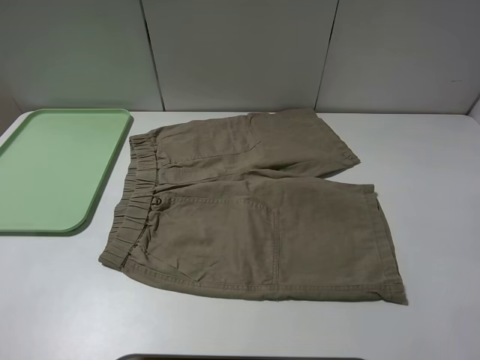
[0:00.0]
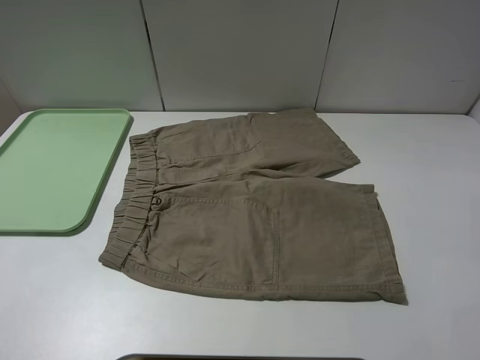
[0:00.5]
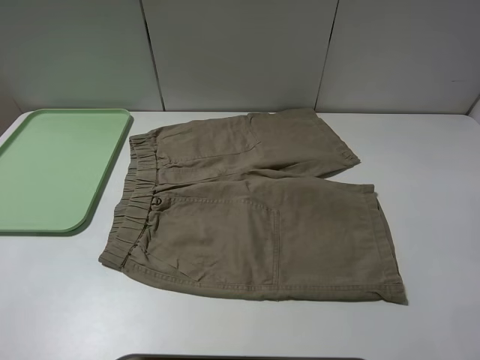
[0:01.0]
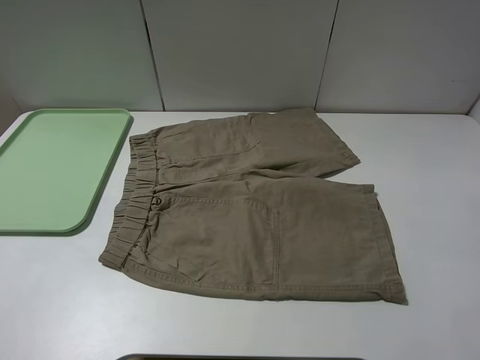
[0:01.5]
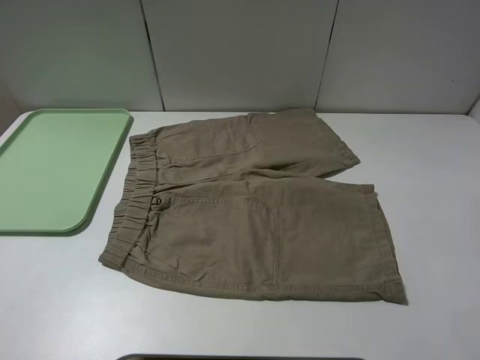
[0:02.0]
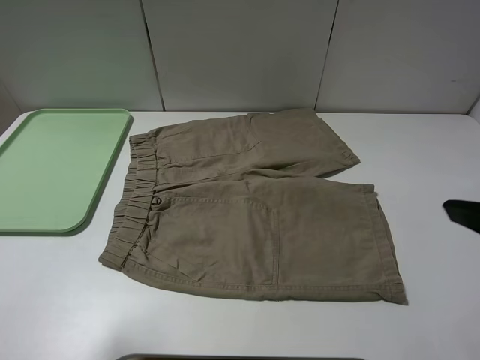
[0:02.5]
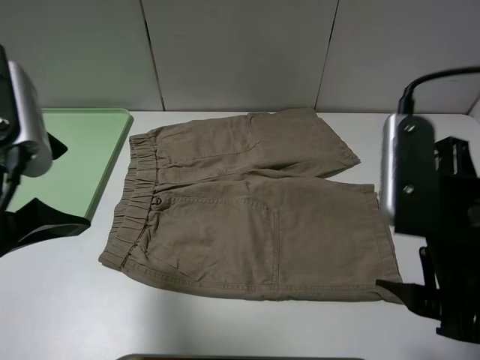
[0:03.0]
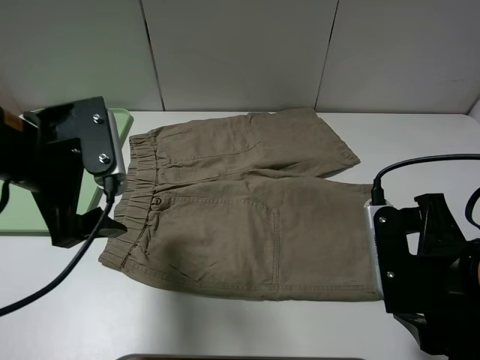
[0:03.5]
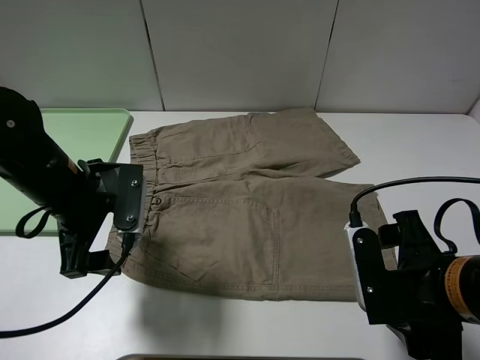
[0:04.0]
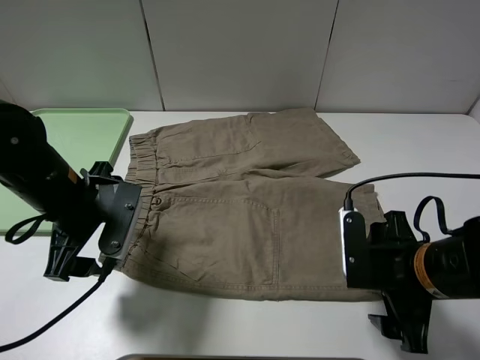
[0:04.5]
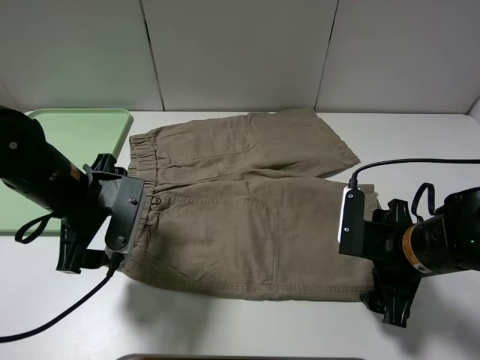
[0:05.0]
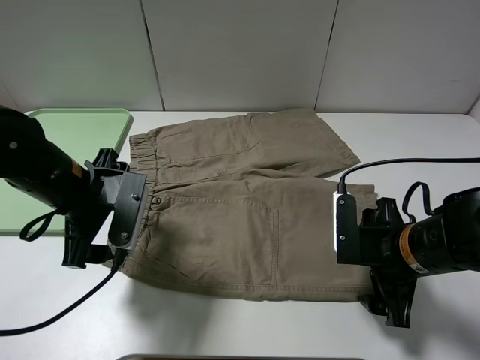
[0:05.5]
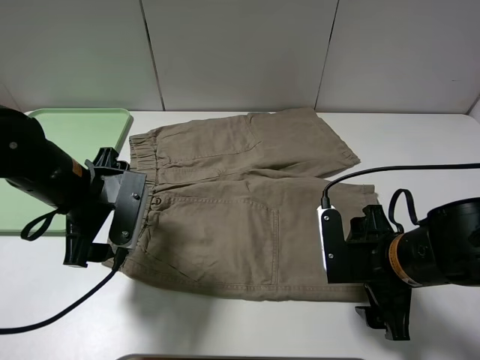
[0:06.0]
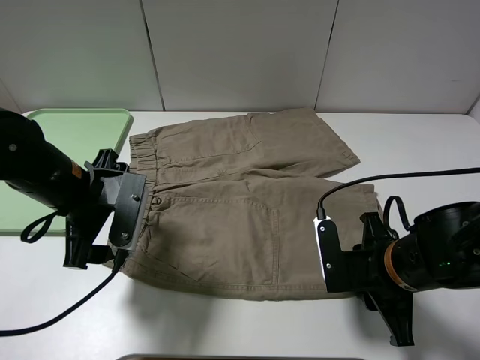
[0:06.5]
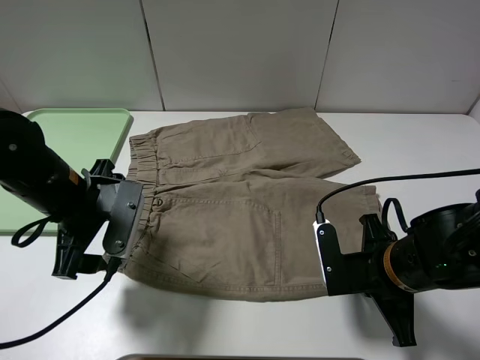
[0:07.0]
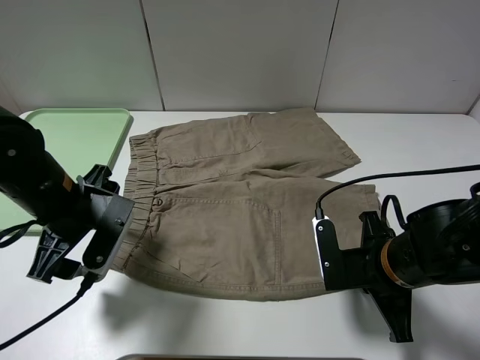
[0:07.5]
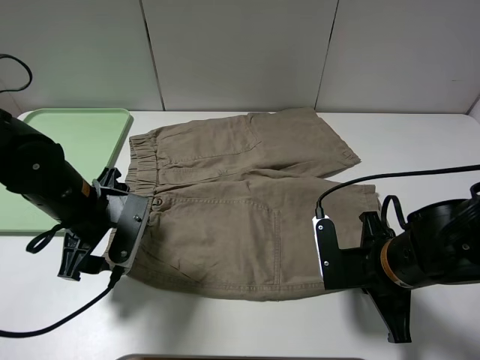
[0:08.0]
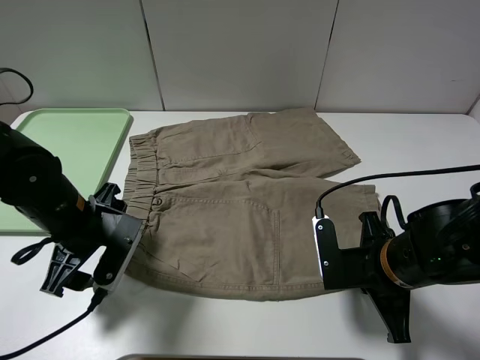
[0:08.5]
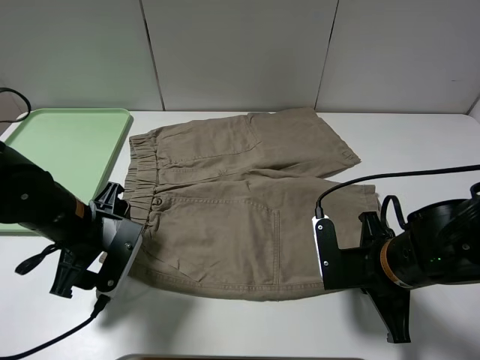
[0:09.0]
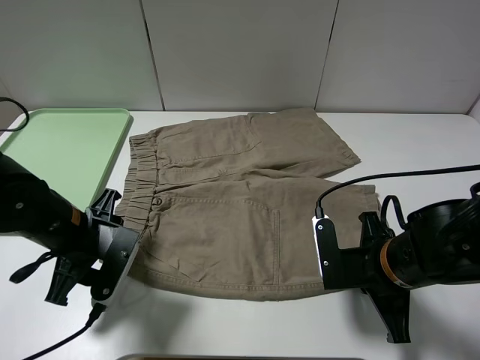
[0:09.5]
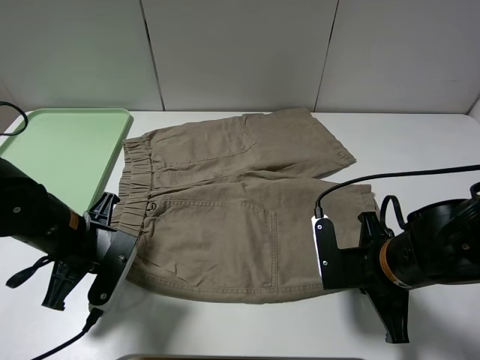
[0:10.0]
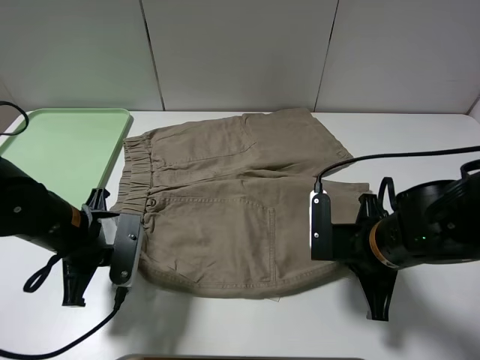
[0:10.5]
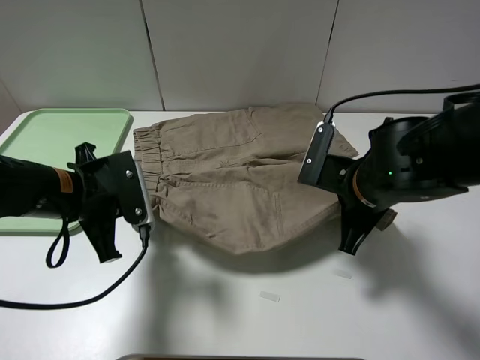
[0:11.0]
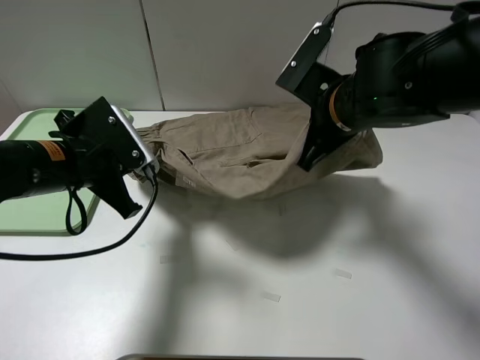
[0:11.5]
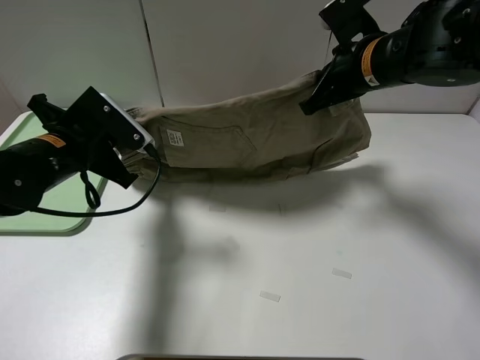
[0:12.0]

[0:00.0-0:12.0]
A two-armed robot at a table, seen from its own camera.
Task of the whole recording: fold the khaki jeans in half with two grippers, then fold them in half again, and use the left claw to place the folded fold khaki jeans on the tray.
Step, 0.0 to 7.0 s: Grasp the khaki trousers with the right gripper.
Step, 7.5 to 10.0 s: Grasp the khaki trousers with the left gripper.
2.0 to 4.0 s: The right gripper is displaced downward, forward and to the left by some 20 cm; the left gripper shifts approximately 30 cm forward, downward and to the right.
4.0 to 6.0 s: The right gripper moves about 5 cm.
6.0 to 8.0 s: The right gripper closes.
8.0 to 10.0 s: The left gripper closes its fingers.
10.0 to 12.0 s: The right gripper shifts roughly 25 cm forward and upward. Meanwhile the left gripper heads upward and forward, covering about 10 cm.

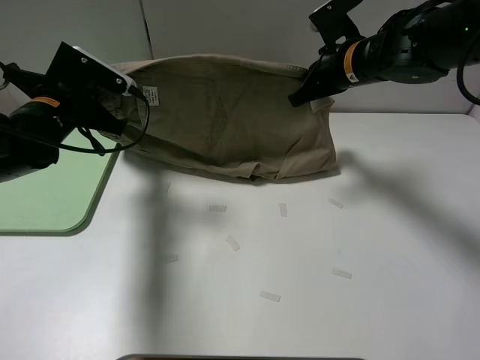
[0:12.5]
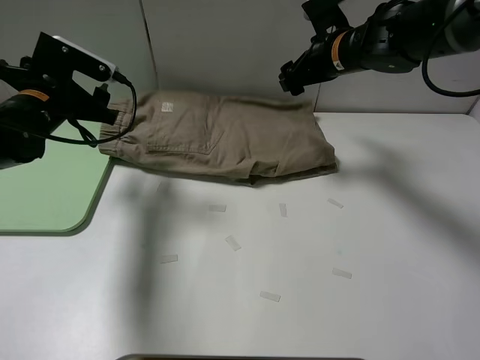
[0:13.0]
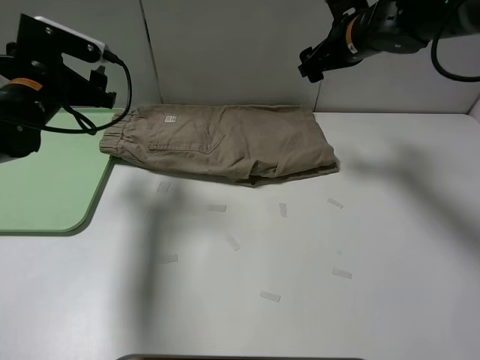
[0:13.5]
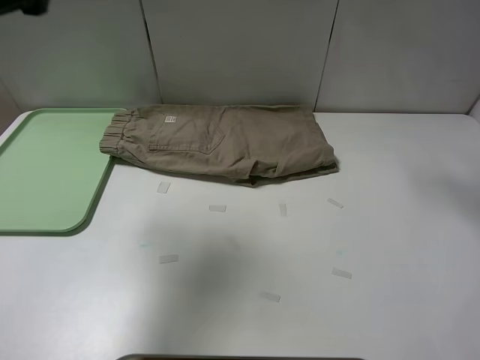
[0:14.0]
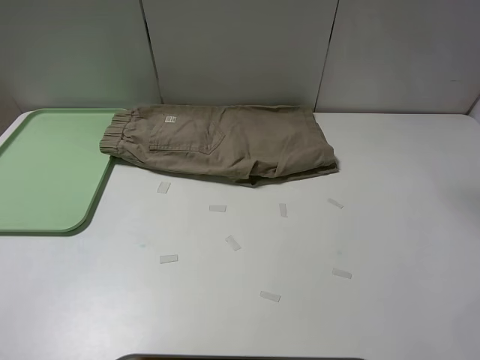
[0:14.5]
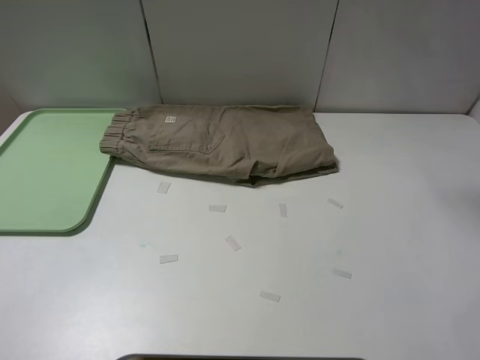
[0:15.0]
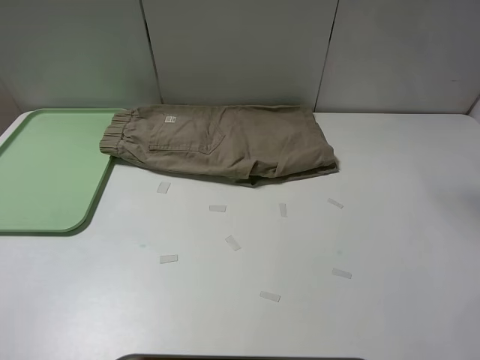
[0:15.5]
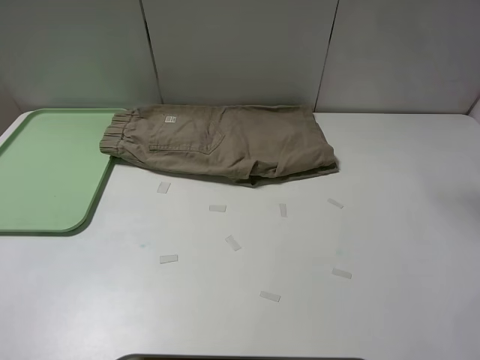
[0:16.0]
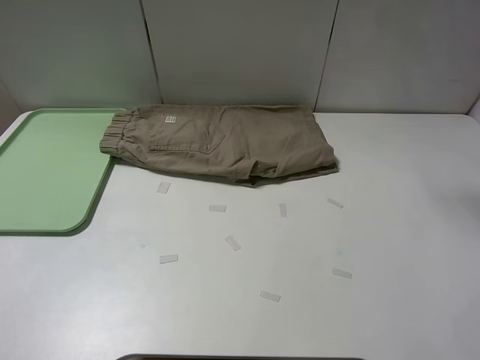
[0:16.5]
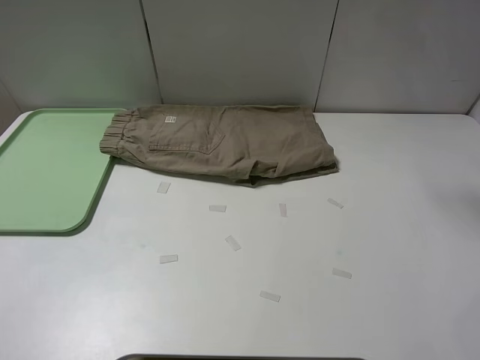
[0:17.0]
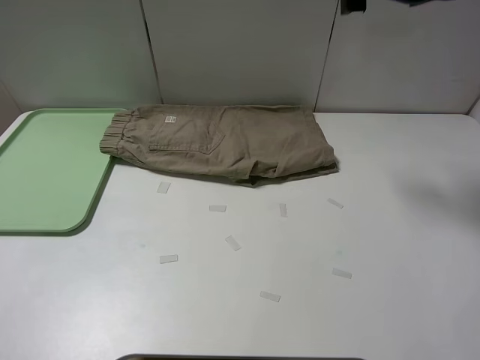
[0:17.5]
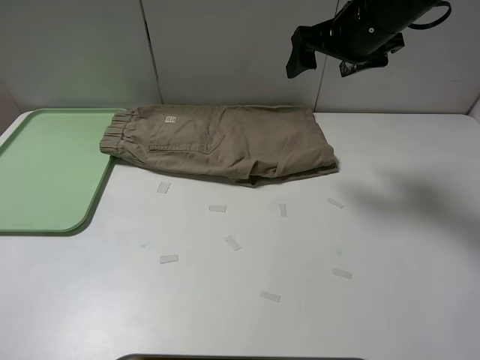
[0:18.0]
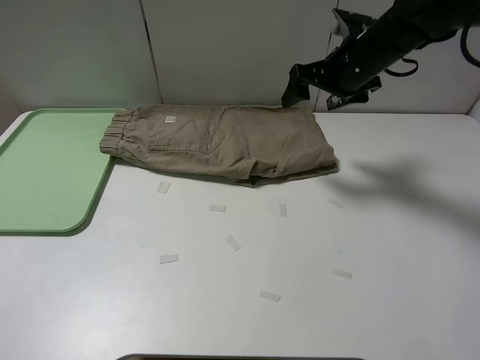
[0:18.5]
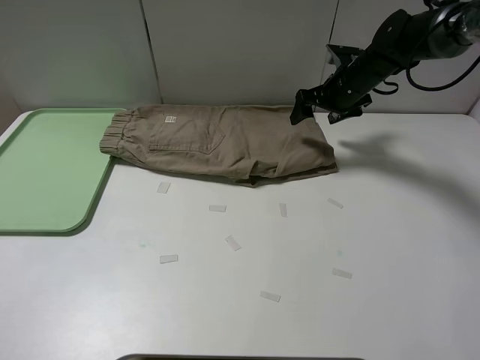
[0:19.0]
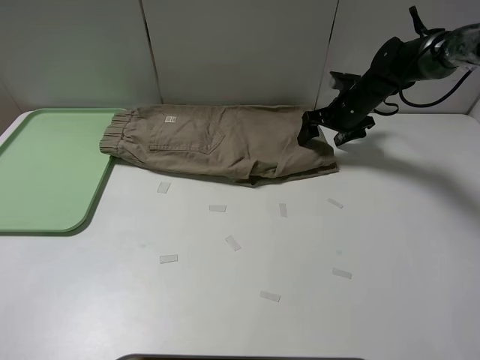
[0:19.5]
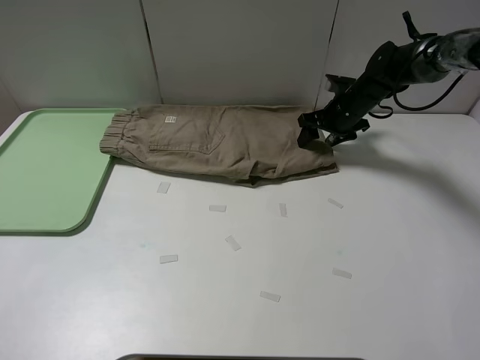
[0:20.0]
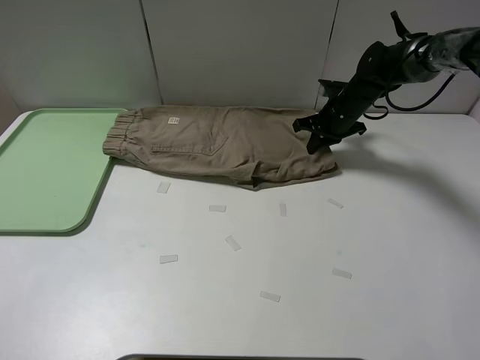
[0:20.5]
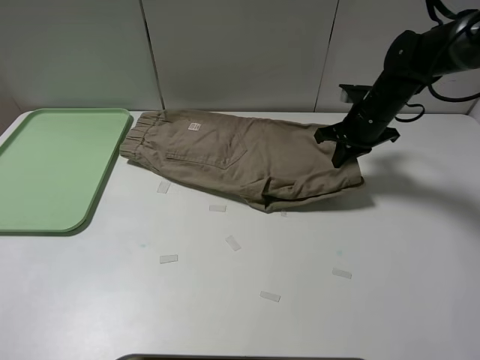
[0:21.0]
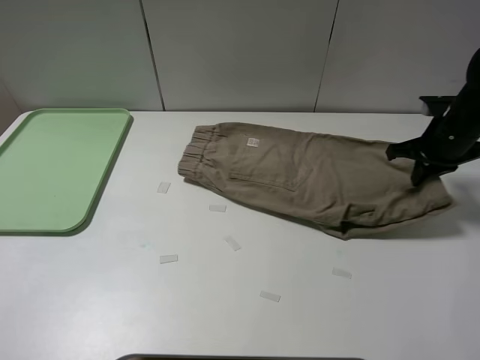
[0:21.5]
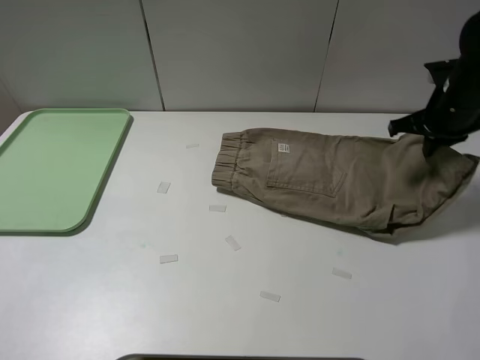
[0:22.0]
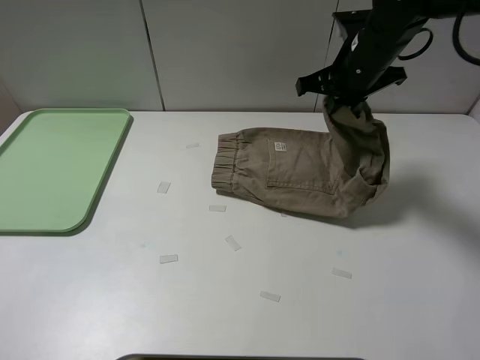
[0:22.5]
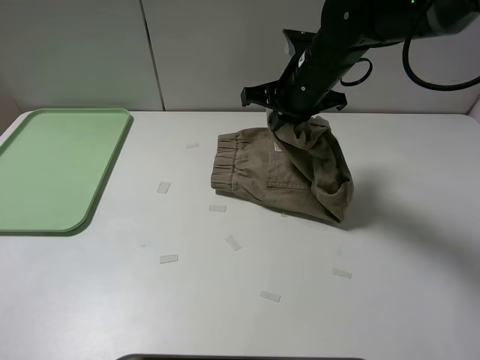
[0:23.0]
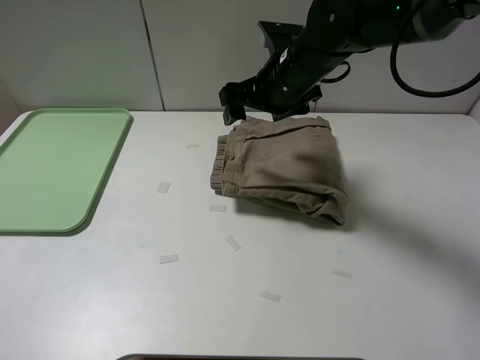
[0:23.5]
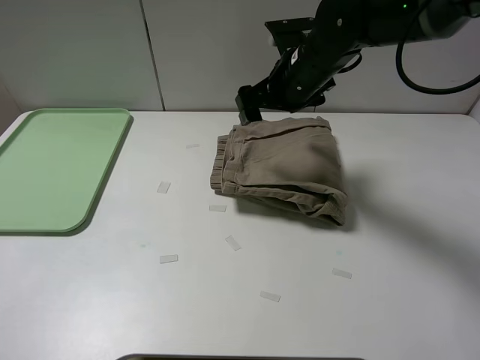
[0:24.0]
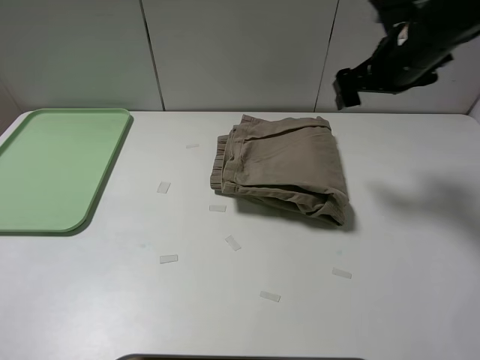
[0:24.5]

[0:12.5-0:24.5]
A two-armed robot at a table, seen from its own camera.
Task of the whole recording: fold the khaki jeans in half with two grippers, then fold them in half again, and use the left claw to place the folded fold khaki jeans on the tray.
Step, 13.5 to 20.0 s: Grasp the khaki trousers with the right gripper.
Step, 20.5 to 23.5 s: Fold the khaki trousers from right to left with the right gripper.
12.5 to 14.5 s: The right gripper heads upward, covering some 20 cm, and opens its fingers, while the left gripper is displaced backward and upward by about 35 cm, and opens its fingers.
16.5 to 18.5 s: The right gripper moves downward, approximately 20 cm.
18.5 to 20.5 s: The right gripper goes about 15 cm downward and forward, and closes up.
20.5 to 22.5 s: The right gripper is displaced upward and backward by roughly 15 cm, and travels to the right and back again, some 15 cm each way.
22.5 to 24.5 s: The right gripper shifts about 5 cm to the right, and opens its fingers.

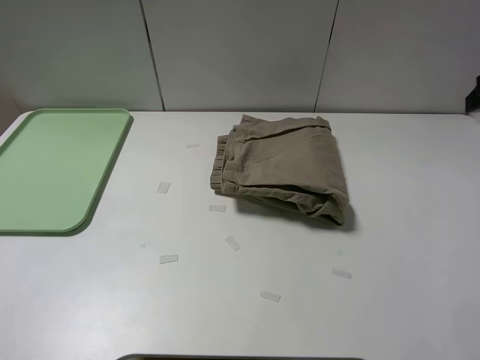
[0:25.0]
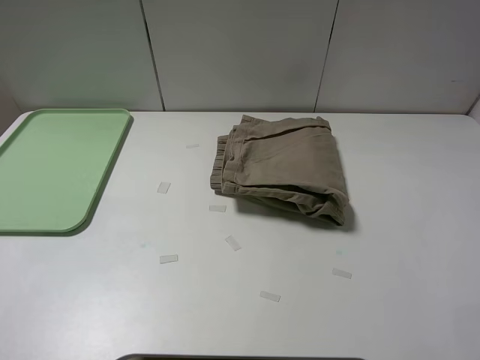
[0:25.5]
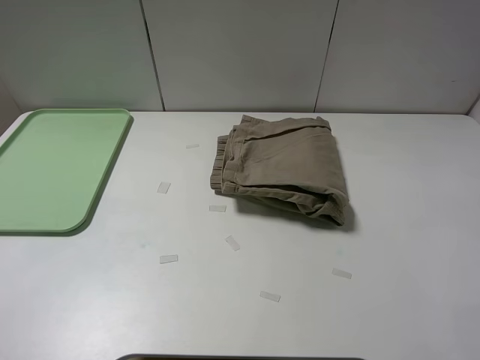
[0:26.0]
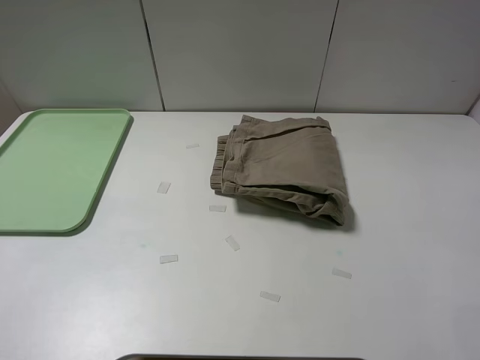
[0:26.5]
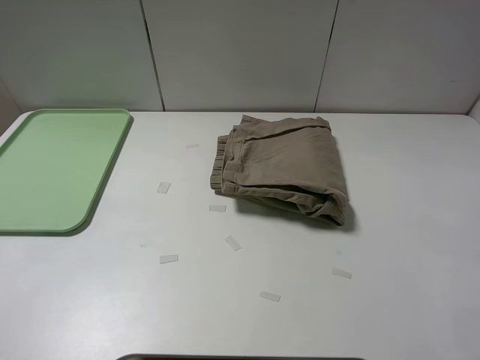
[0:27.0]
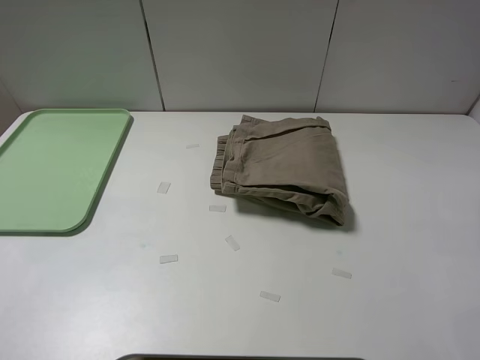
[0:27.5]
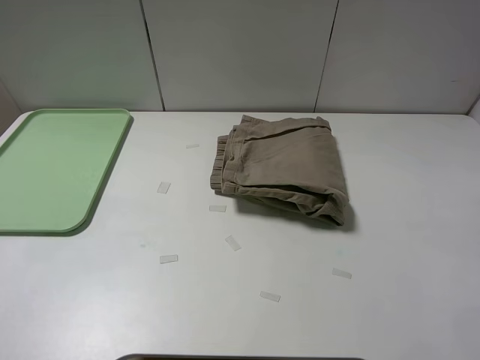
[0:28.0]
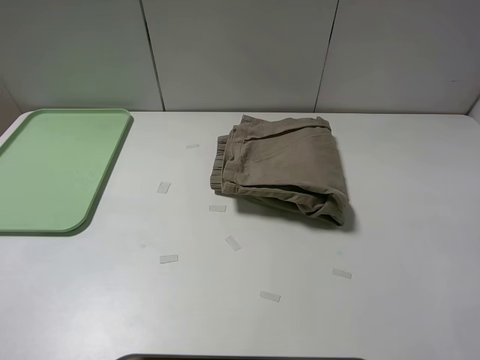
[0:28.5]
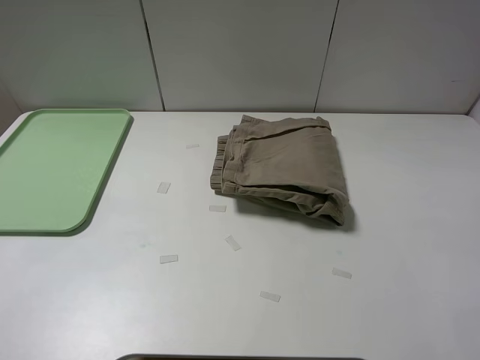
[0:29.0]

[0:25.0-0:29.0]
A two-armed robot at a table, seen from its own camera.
Task of the whole recording: fold the khaki jeans in half with two grippers, then fold them in half again, and use the left claw to place the folded fold khaki jeans on the tray.
27.0 to 29.0 s: Both grippers stay put.
